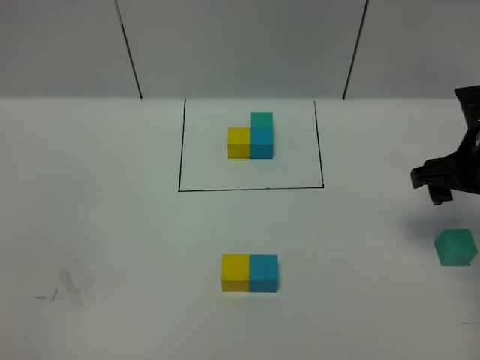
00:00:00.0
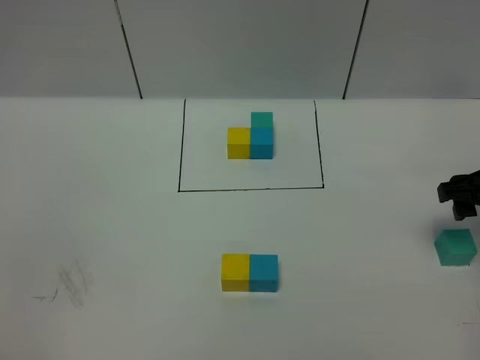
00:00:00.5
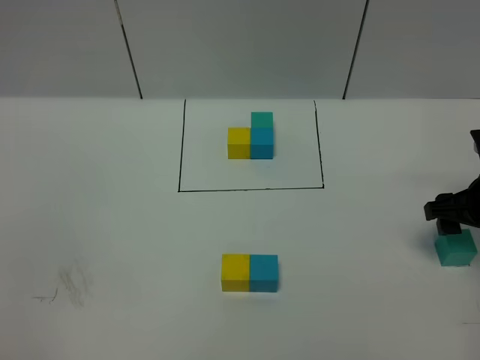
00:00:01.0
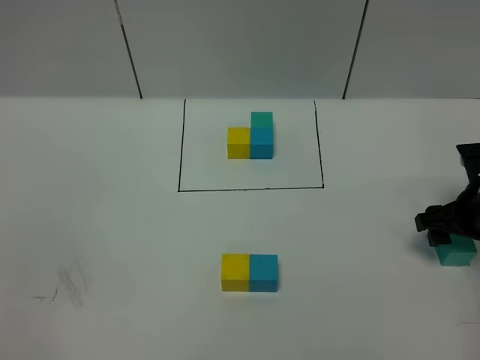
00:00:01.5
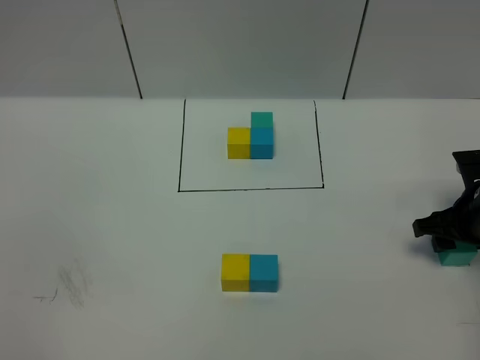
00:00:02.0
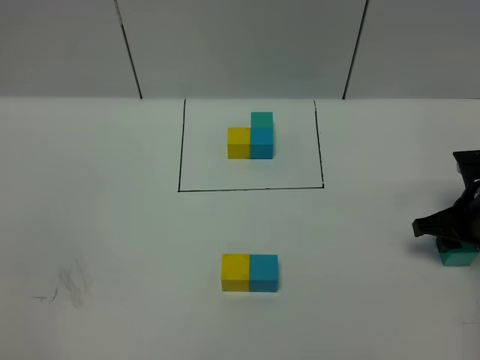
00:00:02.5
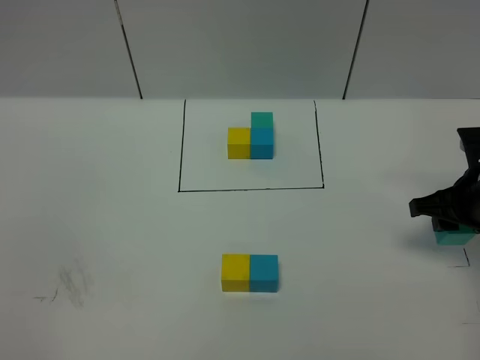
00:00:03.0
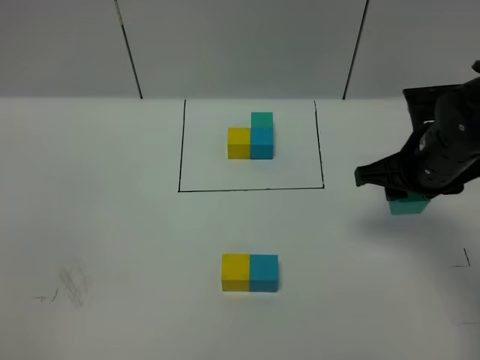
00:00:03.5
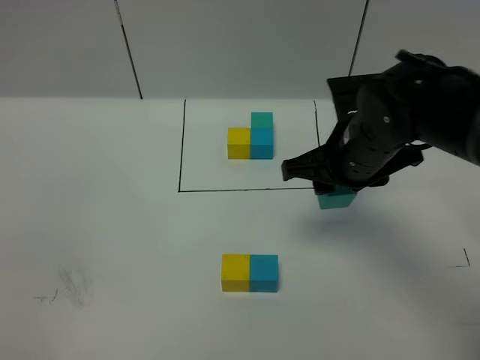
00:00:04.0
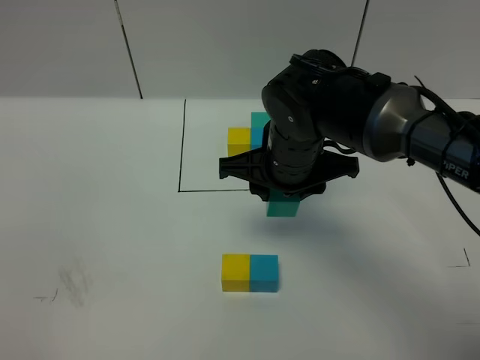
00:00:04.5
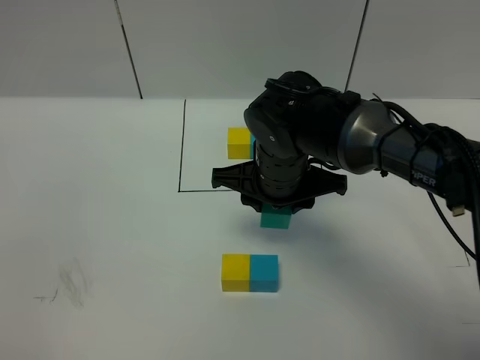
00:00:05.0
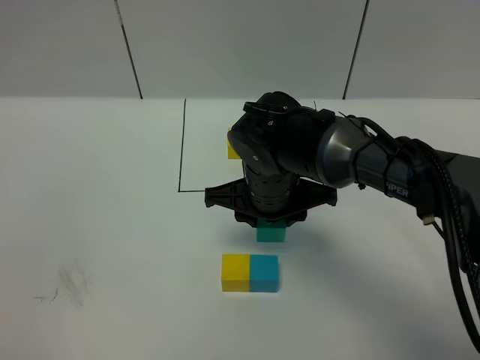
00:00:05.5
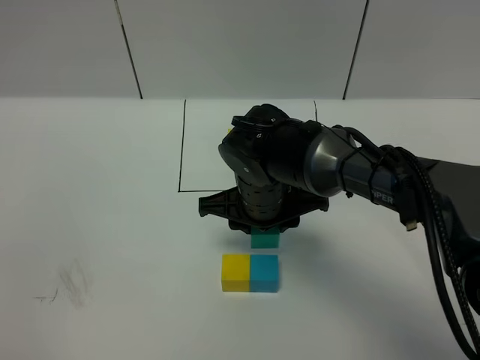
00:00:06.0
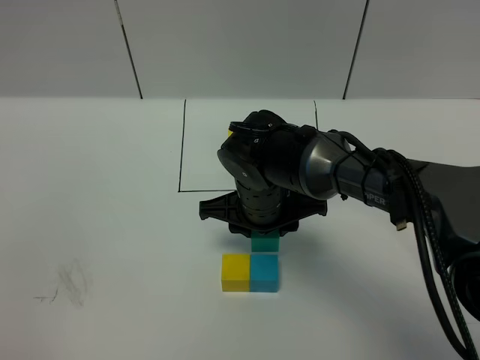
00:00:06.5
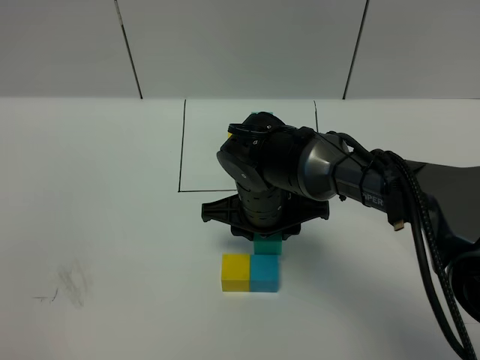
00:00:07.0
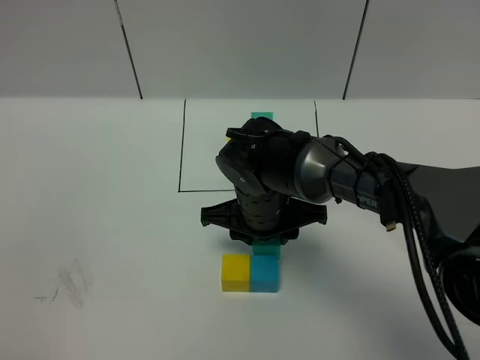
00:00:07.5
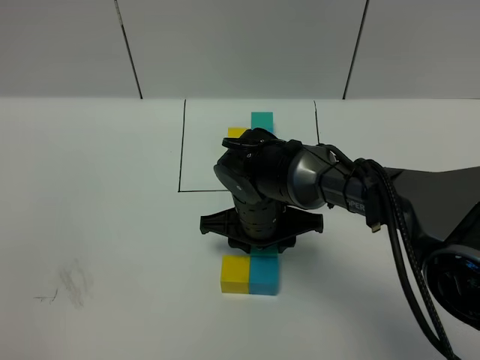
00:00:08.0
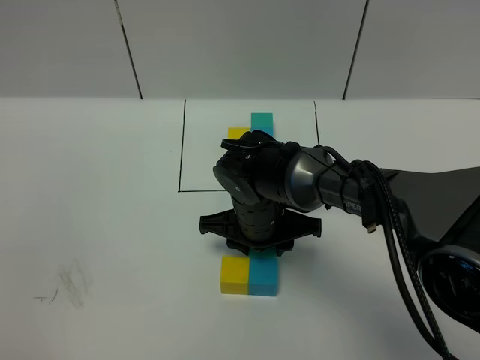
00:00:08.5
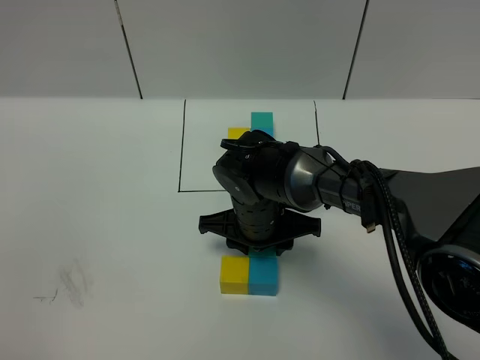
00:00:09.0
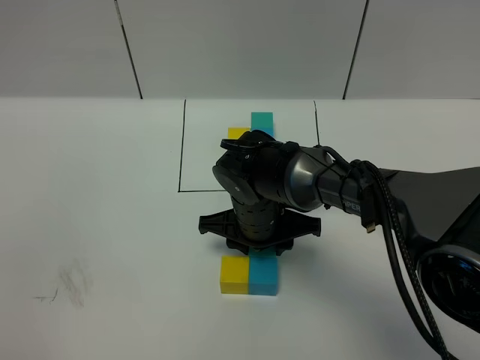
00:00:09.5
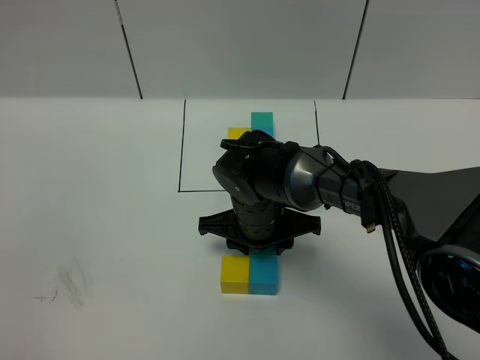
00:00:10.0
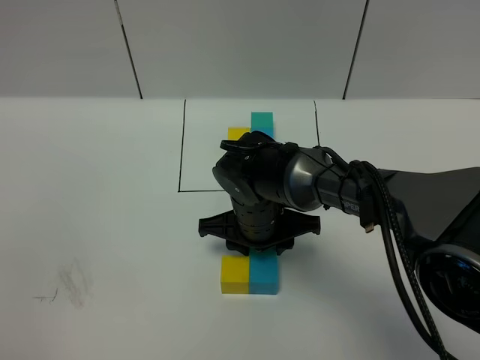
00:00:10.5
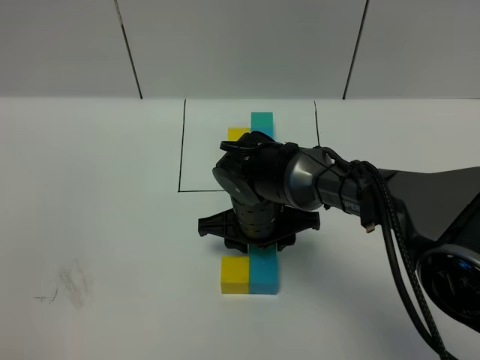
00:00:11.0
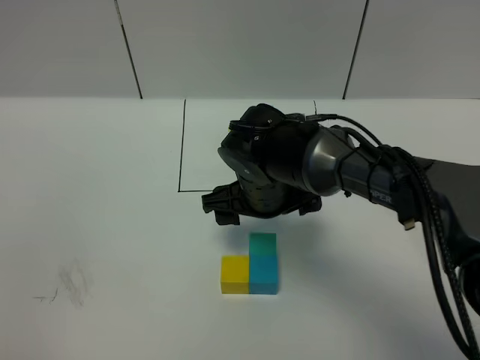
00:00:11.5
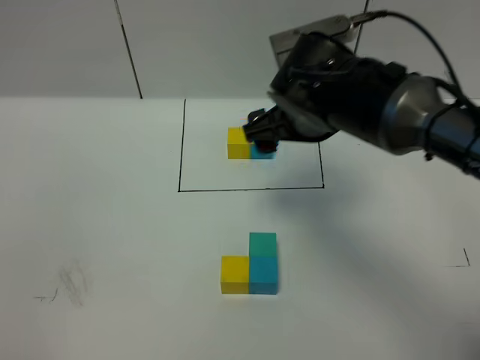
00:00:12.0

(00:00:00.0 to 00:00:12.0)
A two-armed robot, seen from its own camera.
Task of the whole recording: According to the building block template in front, assemble the scattered blocks together.
Step, 00:00:00.0 - 00:00:11.5: Put the green cube in the front of the blue cube.
00:00:00.0 - 00:00:02.0: The right gripper moves downward, roughly 10 cm.
00:00:02.0 - 00:00:04.0: The right gripper shifts approximately 20 cm to the left and upward.
00:00:04.0 - 00:00:06.0: The right gripper travels to the left and downward by approximately 10 cm.
00:00:06.0 - 00:00:08.0: The grippers move only a little.
00:00:08.0 - 00:00:10.0: The two grippers keep their place.
00:00:10.0 - 00:00:12.0: The right gripper shifts roughly 15 cm upward and to the right, and opens its fingers.

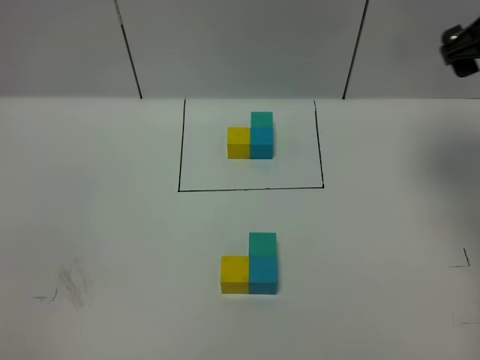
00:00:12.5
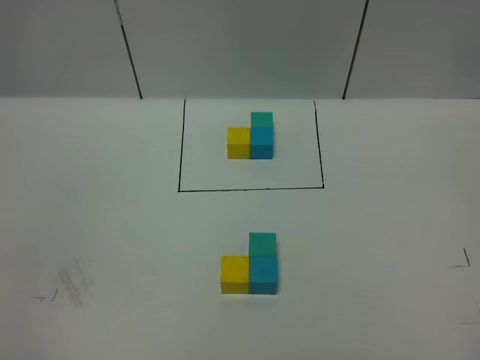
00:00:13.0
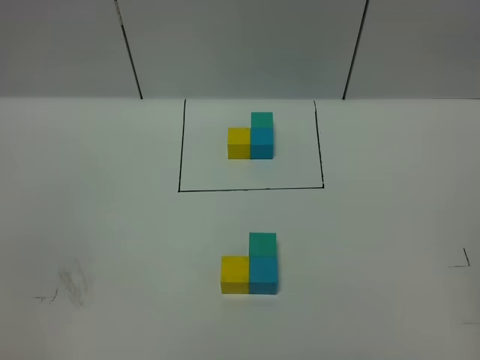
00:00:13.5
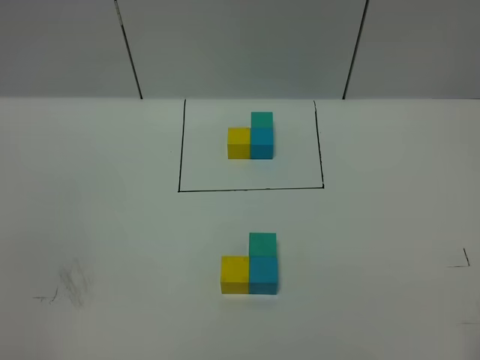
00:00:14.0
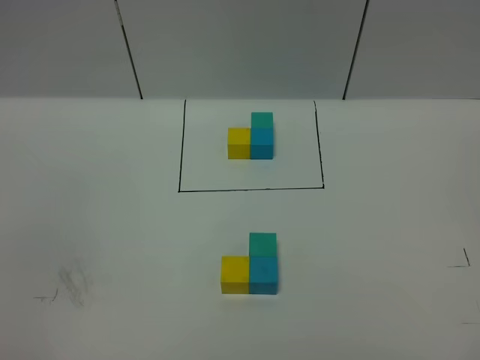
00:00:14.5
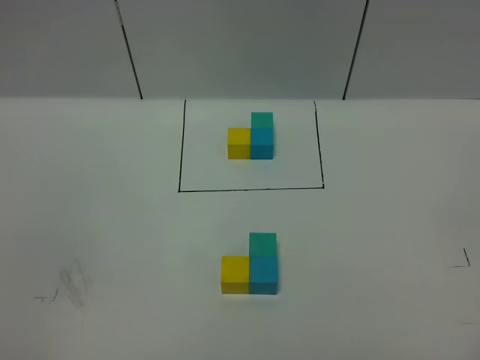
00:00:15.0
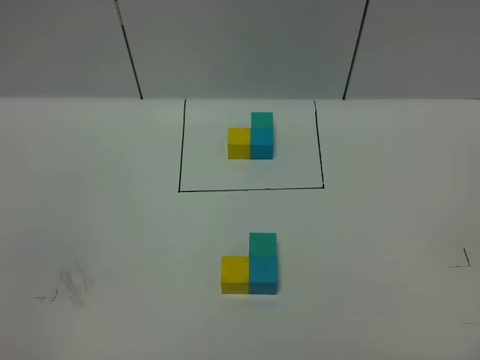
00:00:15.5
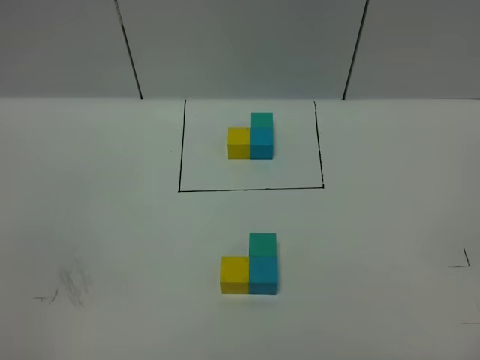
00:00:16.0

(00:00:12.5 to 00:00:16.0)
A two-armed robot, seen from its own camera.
Task of the whole recording: According to the building block template in front, assemble the scattered blocks together.
00:00:12.5 - 00:00:14.5: The right gripper is displaced backward by approximately 40 cm.

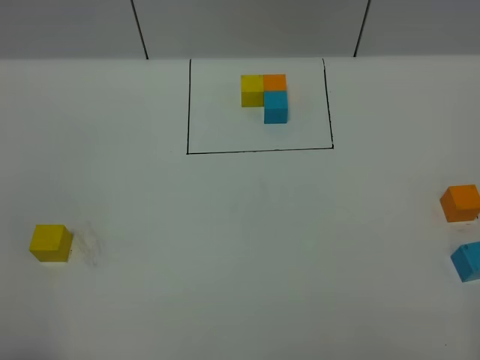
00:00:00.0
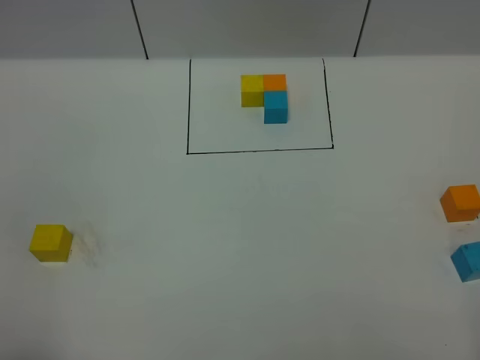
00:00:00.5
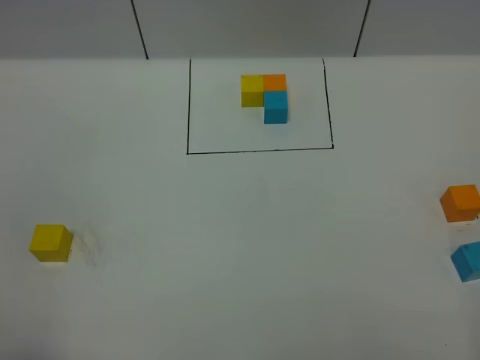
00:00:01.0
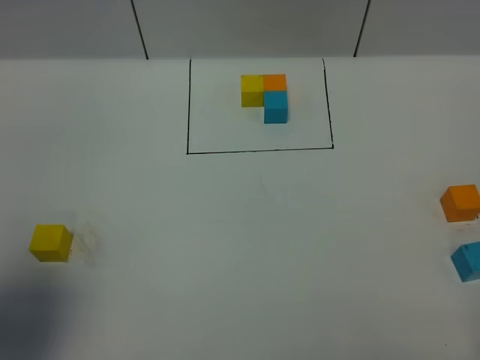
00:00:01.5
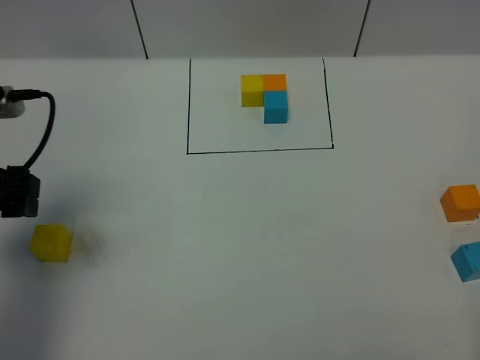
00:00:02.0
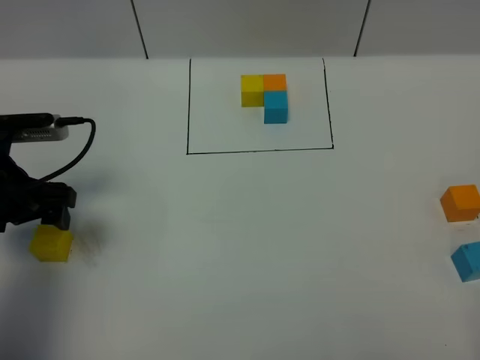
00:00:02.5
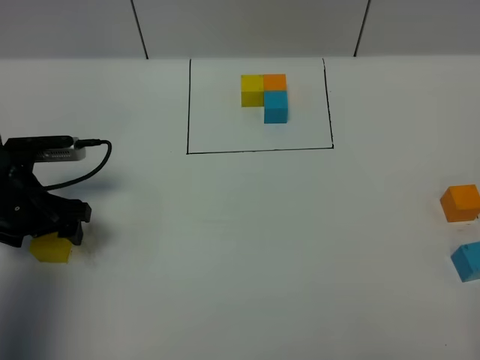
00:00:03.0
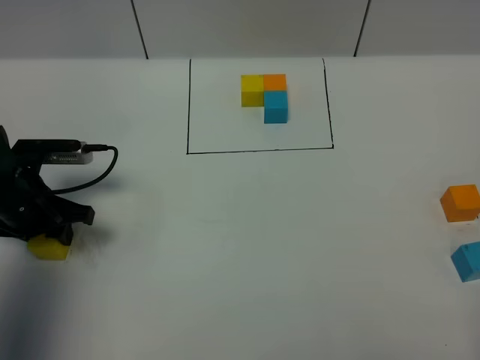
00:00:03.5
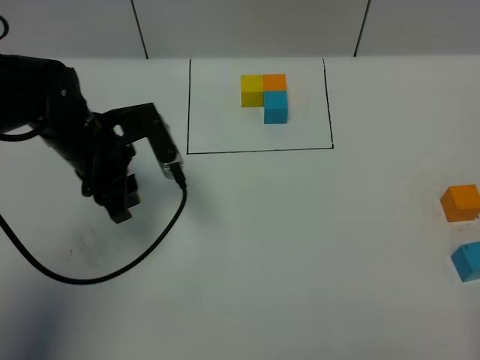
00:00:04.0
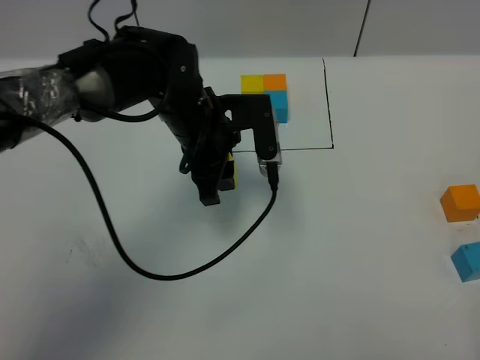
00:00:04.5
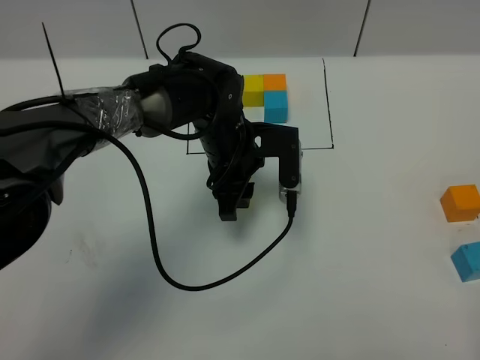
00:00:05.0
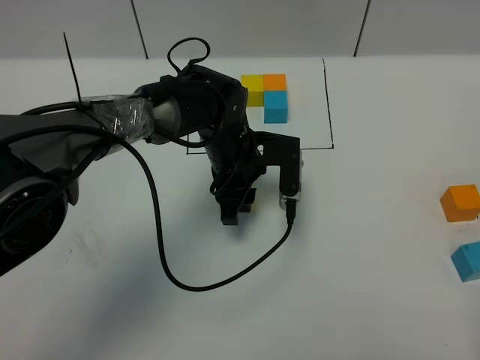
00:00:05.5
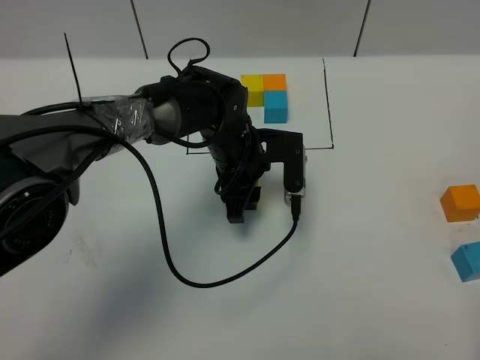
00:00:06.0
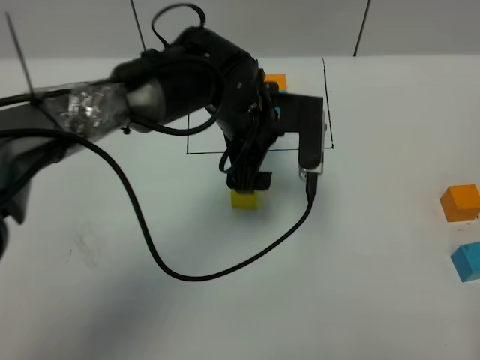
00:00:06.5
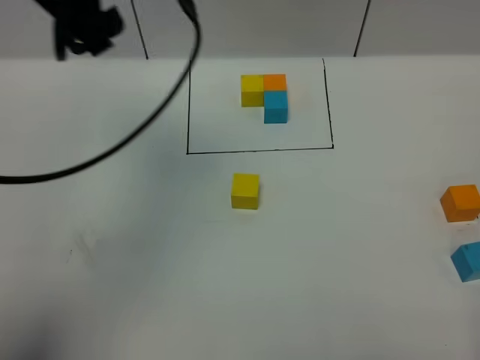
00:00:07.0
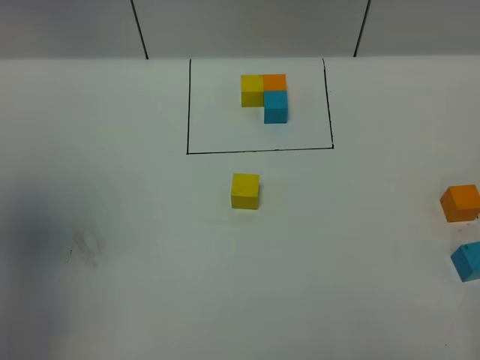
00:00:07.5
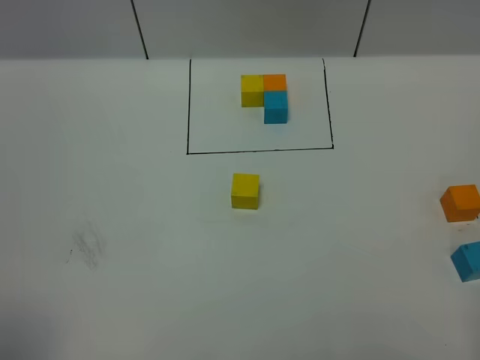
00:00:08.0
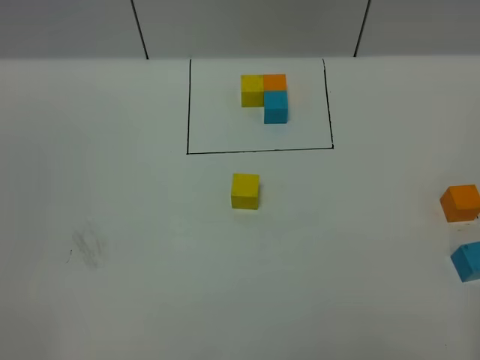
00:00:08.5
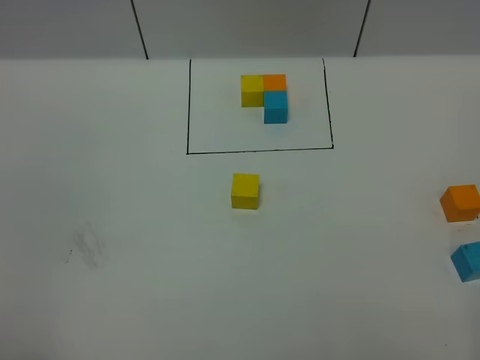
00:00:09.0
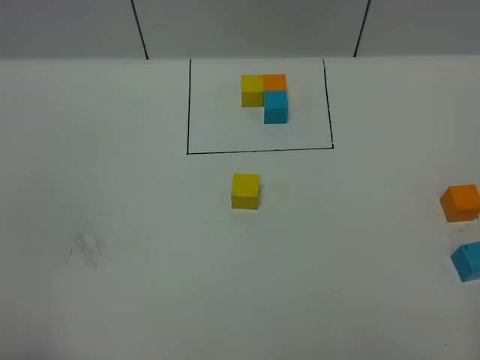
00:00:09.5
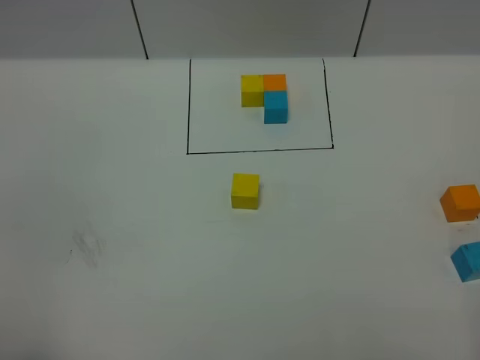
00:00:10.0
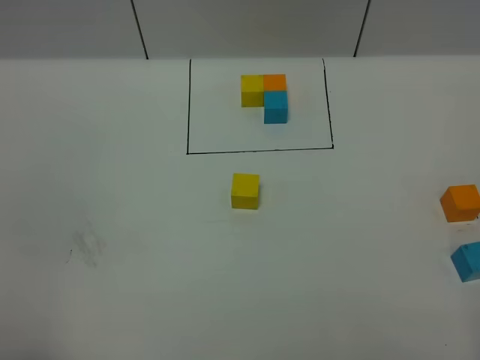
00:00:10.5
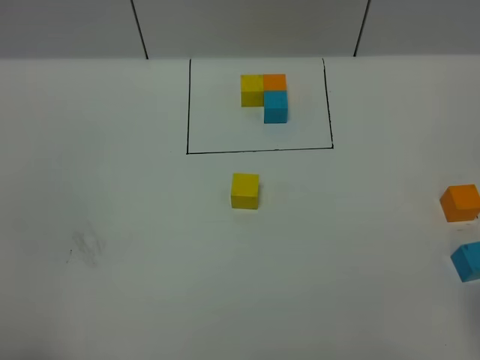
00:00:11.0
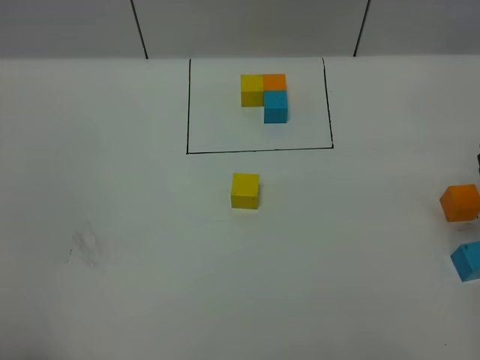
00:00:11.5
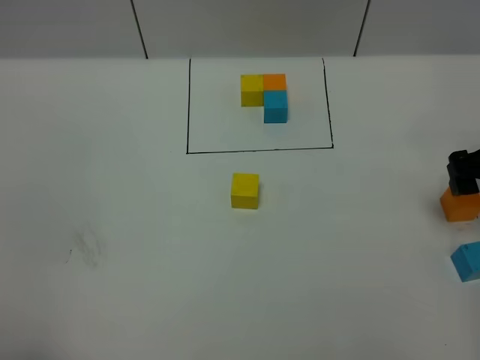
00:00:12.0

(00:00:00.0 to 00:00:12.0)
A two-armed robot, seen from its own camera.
Task of the whole recording: According to the building block template in front, assemble the scattered blocks together.
Step, 00:00:02.0 - 00:00:06.0: Put the yellow cube in the center of the table.
00:00:00.0 - 00:00:02.0: The left gripper goes approximately 25 cm forward.
00:00:02.0 - 00:00:04.0: The left gripper heads to the right, forward and downward, covering some 15 cm, and closes.
00:00:04.0 - 00:00:06.0: The left gripper heads to the right and downward, covering some 15 cm.
00:00:06.0 - 00:00:08.0: The left gripper is displaced backward, to the left and upward by some 60 cm, and opens.
00:00:10.0 - 00:00:12.0: The right gripper travels forward by roughly 30 cm.
